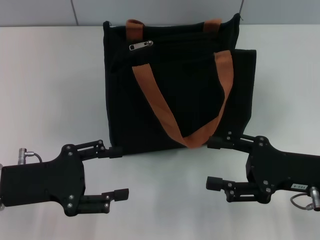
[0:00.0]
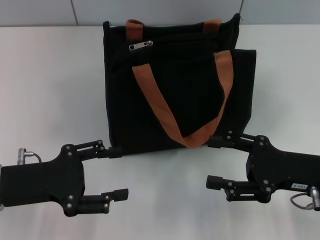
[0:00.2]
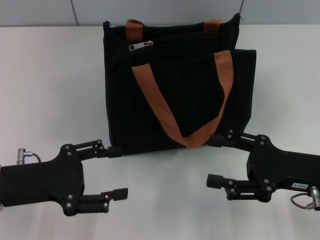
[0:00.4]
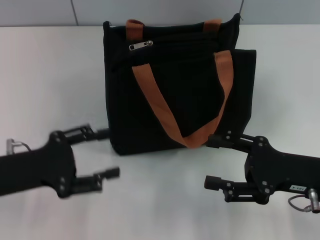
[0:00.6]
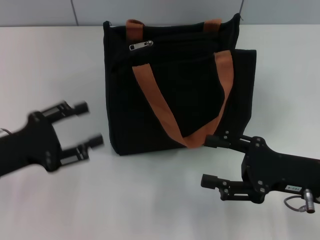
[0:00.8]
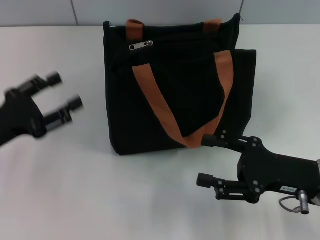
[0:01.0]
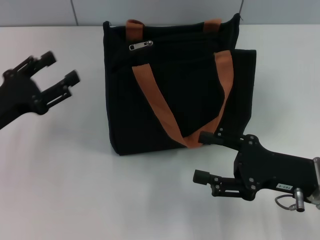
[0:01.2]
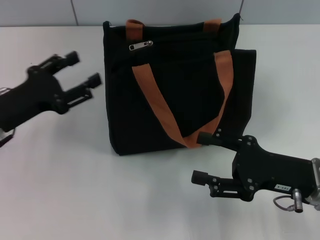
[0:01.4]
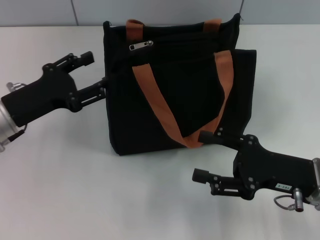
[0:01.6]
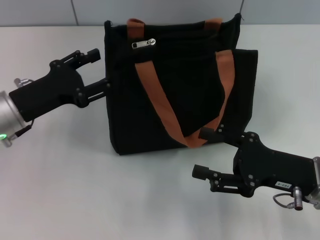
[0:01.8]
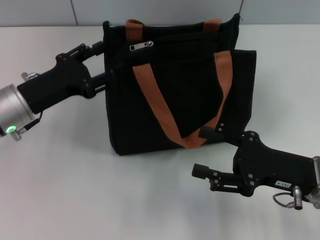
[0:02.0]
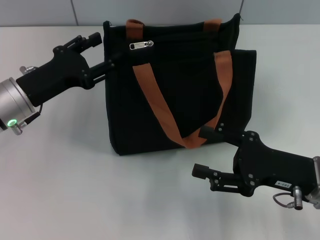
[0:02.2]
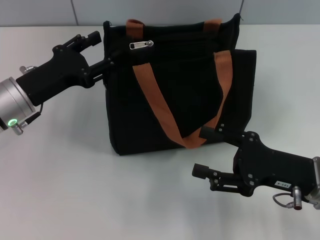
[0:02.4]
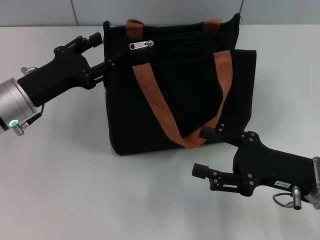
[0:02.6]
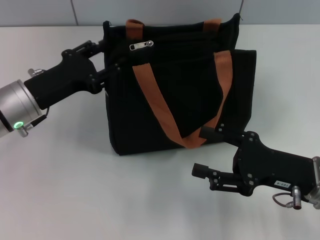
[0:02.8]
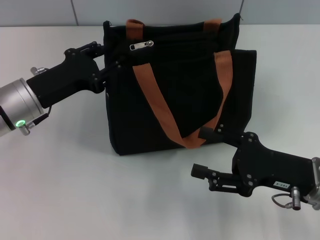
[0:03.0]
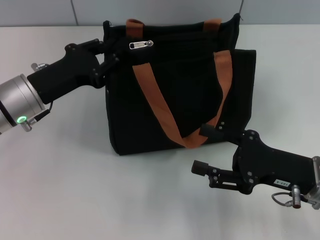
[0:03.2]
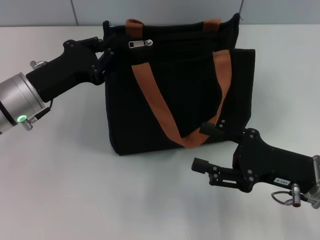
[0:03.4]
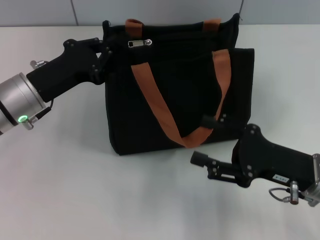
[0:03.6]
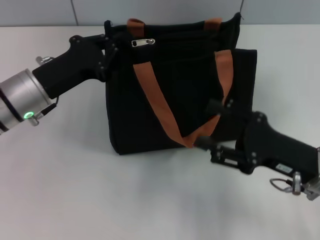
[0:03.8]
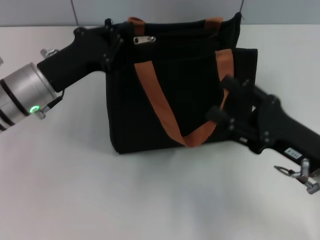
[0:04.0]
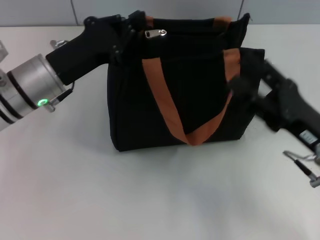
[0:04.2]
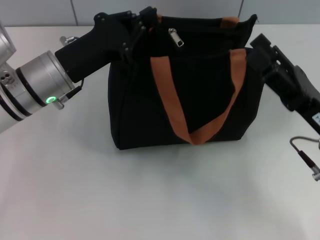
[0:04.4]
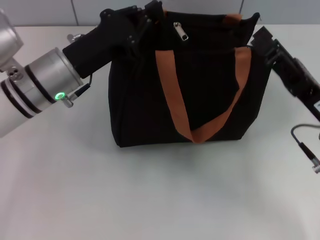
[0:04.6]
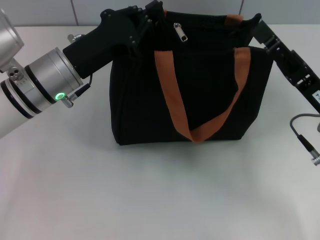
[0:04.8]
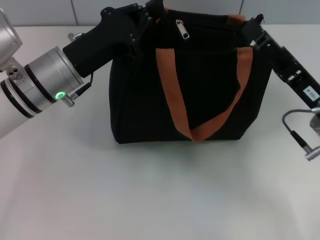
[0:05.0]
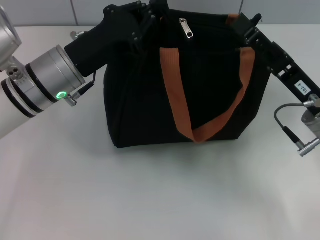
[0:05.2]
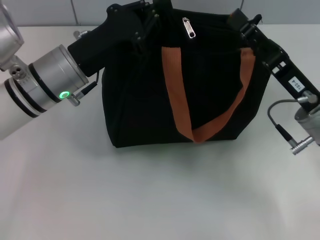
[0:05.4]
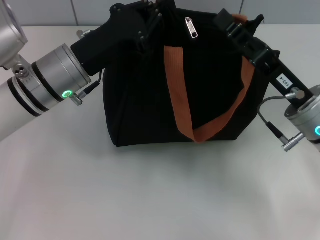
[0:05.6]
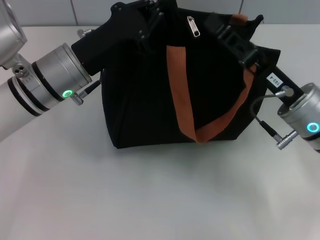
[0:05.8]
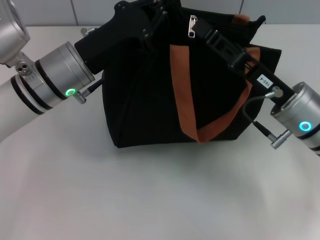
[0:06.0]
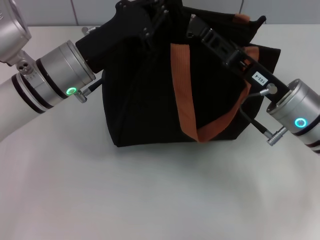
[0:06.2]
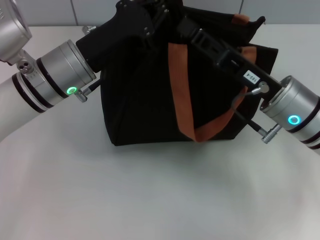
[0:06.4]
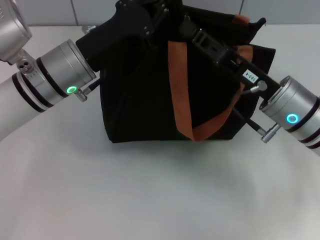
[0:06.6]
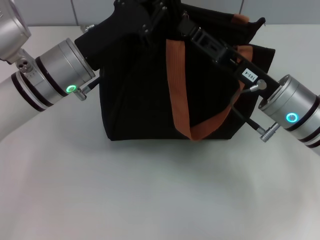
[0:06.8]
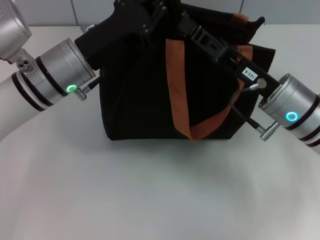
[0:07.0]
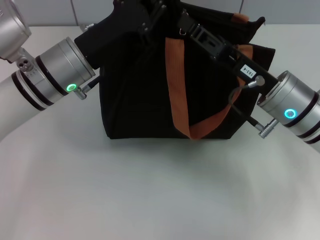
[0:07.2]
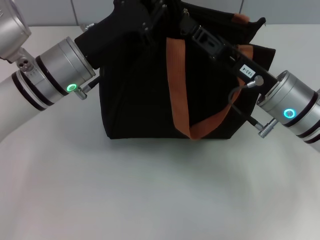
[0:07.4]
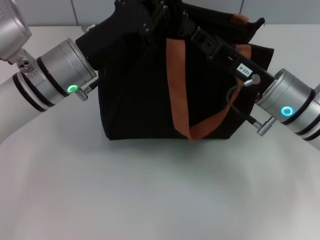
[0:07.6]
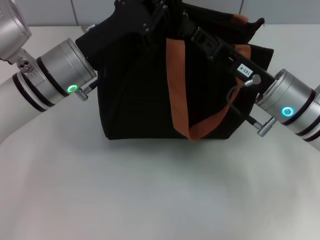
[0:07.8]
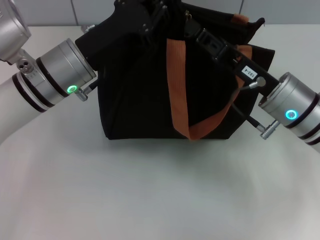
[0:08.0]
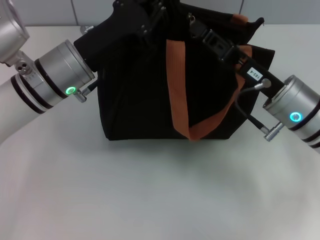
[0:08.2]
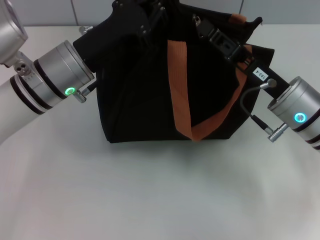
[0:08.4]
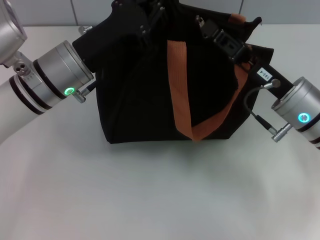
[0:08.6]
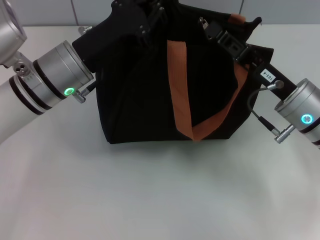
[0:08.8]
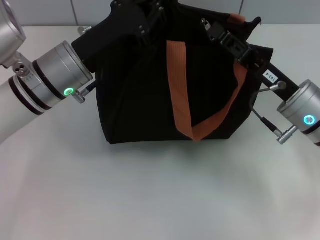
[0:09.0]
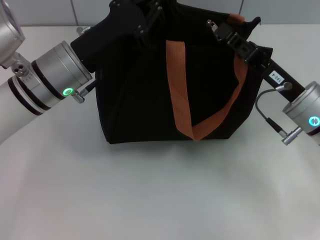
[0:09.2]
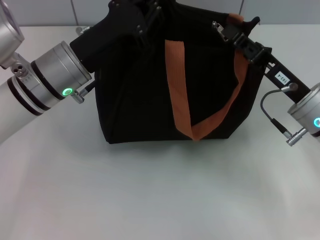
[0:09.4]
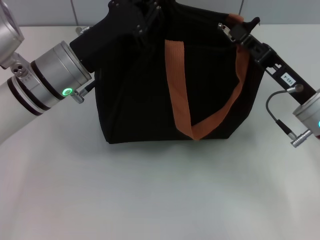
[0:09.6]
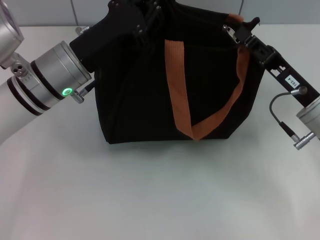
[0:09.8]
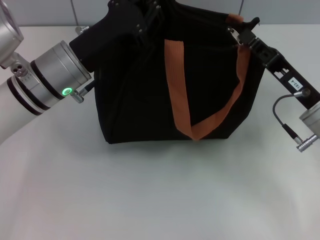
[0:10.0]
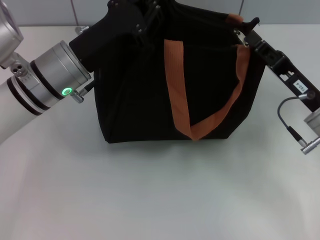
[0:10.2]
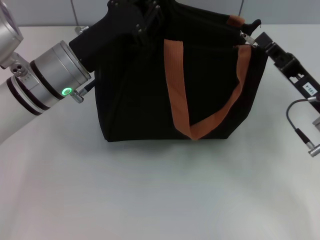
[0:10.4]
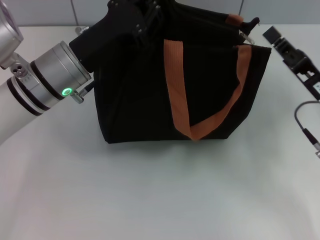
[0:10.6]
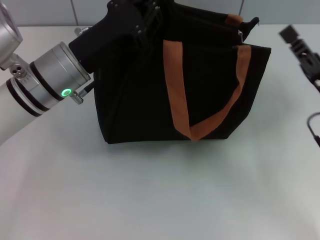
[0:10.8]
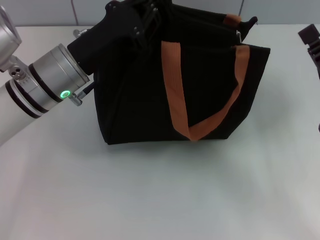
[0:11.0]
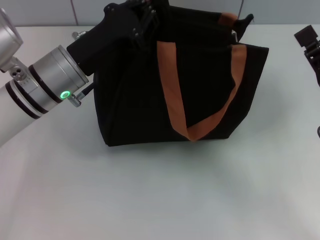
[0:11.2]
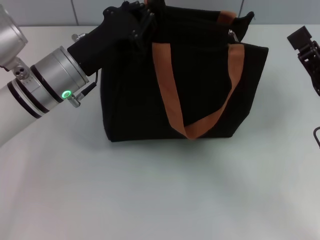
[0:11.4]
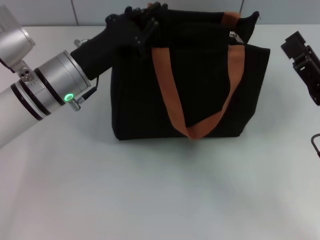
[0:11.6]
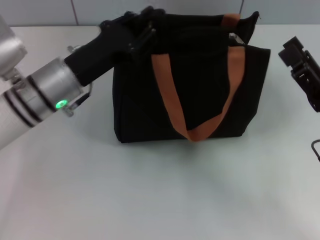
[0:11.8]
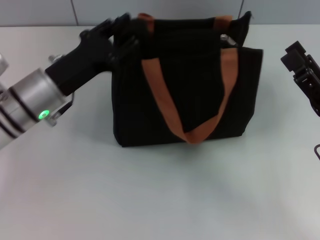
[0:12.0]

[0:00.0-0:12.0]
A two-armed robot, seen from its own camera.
Step, 0:00.0 to 0:10.6: Pull up the zipper with your right hand.
Step, 0:10.8 to 0:12.0: Grab the zipper with your left hand.
0:00.0 to 0:01.6: The left gripper moves forward, some 5 cm.
0:01.6 to 0:03.0: The grippers stay close to where they were, moving slightly.
0:03.0 to 0:04.4: The left gripper ends up roughly 5 cm from where it was, and closes.
0:04.4 to 0:06.0: The right gripper heads forward, covering some 5 cm, and closes up.
0:06.0 to 0:09.0: The grippers make only small movements.
0:09.0 to 0:10.4: The right gripper ends up some 5 cm from where it was.
0:10.4 to 0:12.0: The right gripper heads backward, covering approximately 5 cm, and opens, while the left gripper changes place by about 5 cm, and opens up.

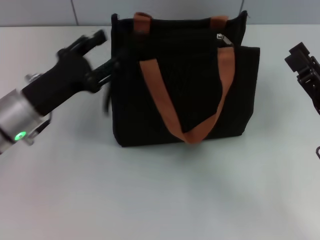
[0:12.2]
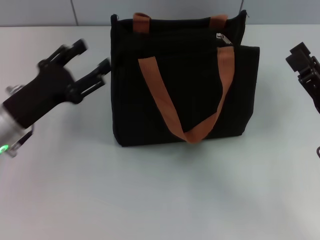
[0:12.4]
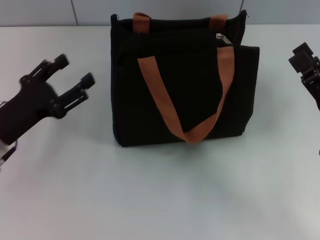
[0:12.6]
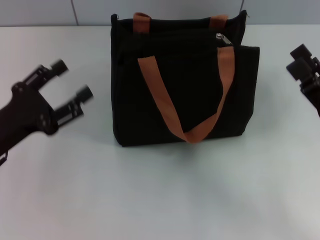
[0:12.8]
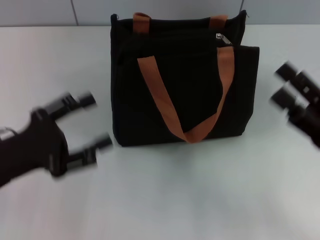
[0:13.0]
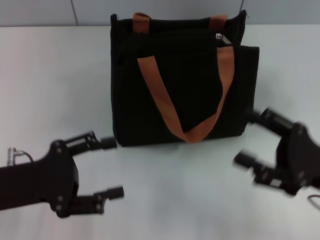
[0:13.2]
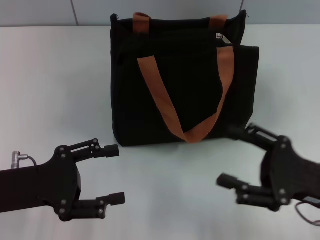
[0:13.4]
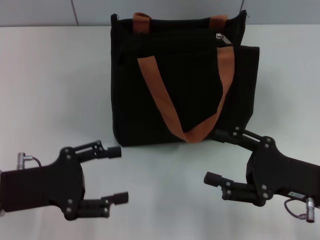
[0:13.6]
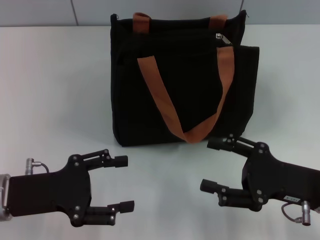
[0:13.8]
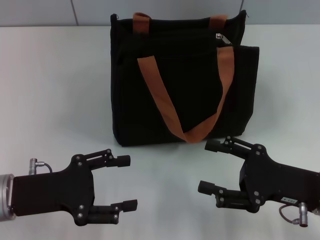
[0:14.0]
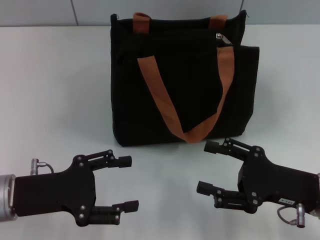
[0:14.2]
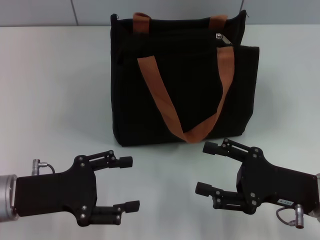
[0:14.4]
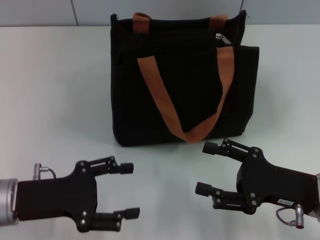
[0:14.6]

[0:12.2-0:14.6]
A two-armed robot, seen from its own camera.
0:12.2 to 0:13.4: The left gripper travels backward by about 10 cm.
0:13.4 to 0:14.6: The grippers stay close to where they were, moving slightly.

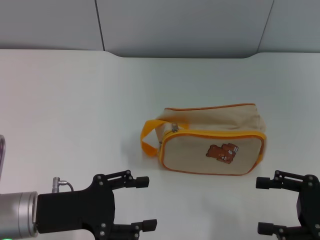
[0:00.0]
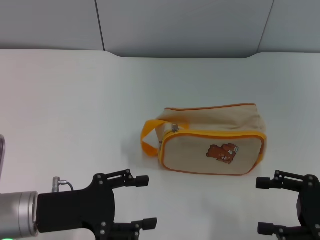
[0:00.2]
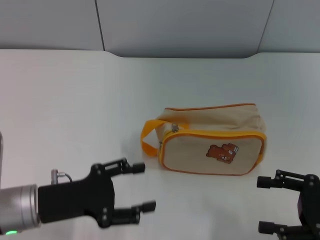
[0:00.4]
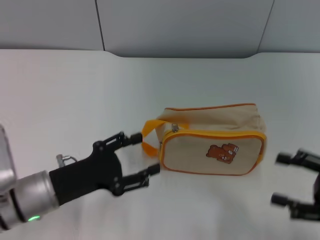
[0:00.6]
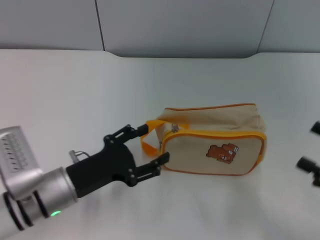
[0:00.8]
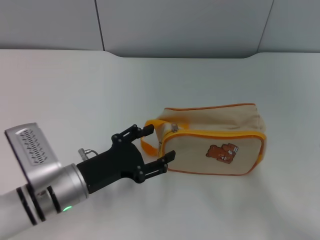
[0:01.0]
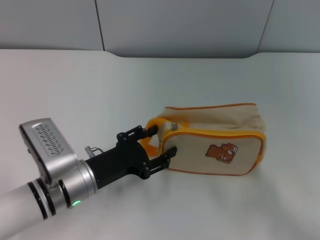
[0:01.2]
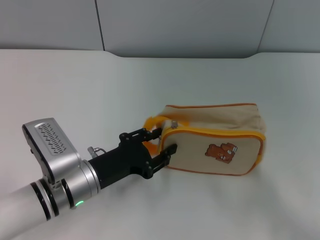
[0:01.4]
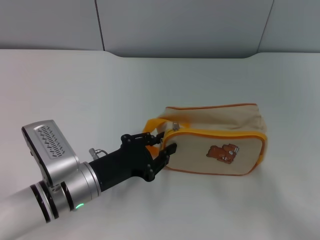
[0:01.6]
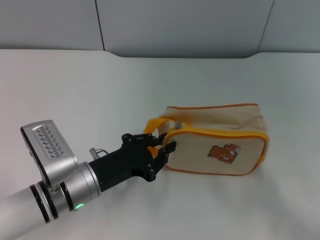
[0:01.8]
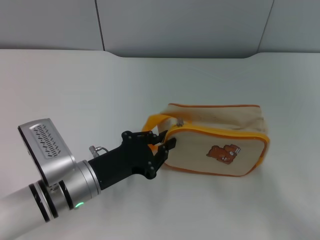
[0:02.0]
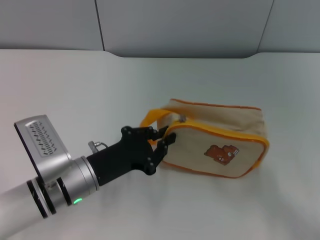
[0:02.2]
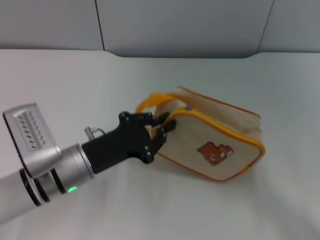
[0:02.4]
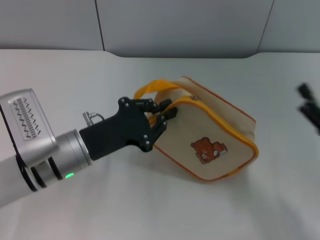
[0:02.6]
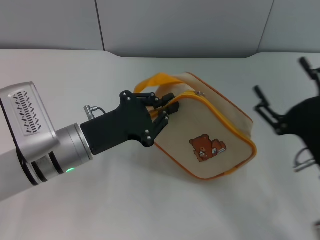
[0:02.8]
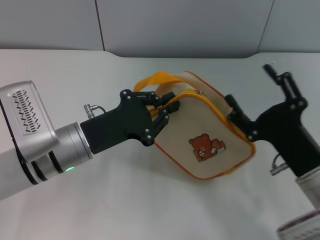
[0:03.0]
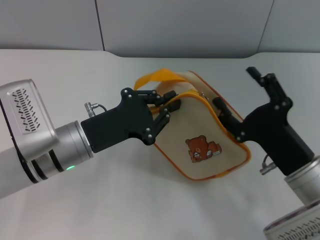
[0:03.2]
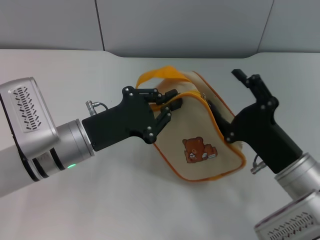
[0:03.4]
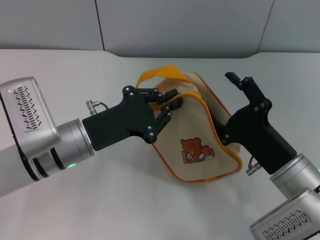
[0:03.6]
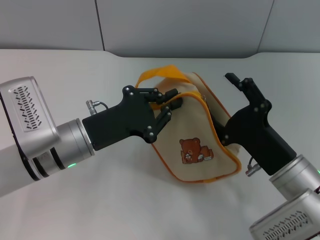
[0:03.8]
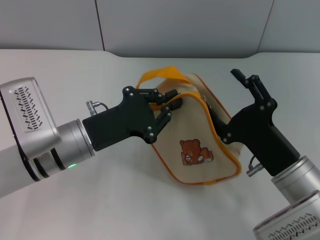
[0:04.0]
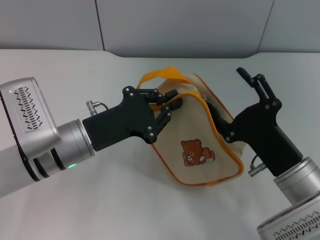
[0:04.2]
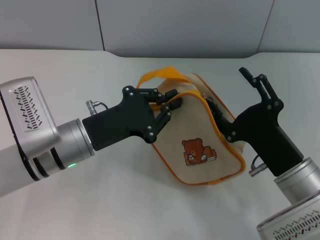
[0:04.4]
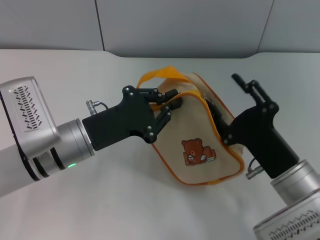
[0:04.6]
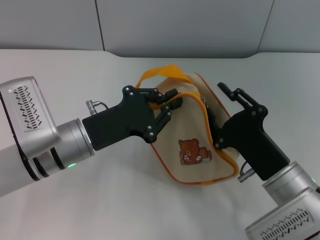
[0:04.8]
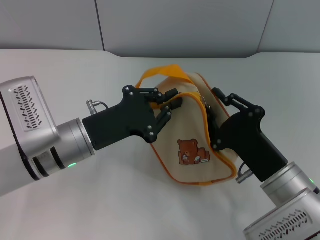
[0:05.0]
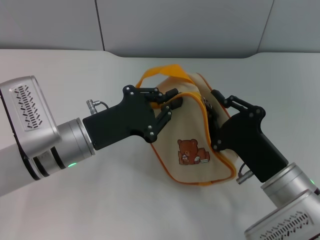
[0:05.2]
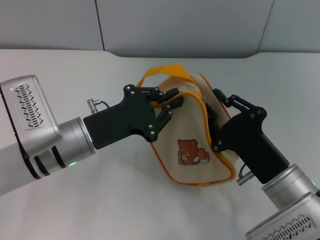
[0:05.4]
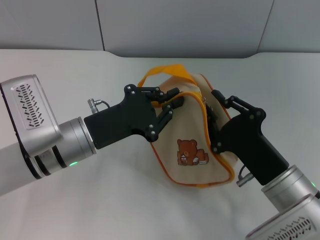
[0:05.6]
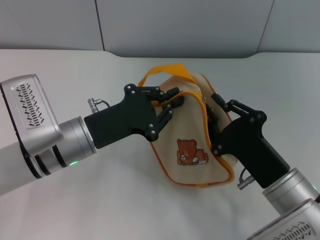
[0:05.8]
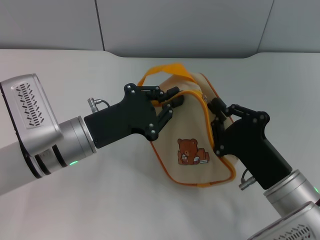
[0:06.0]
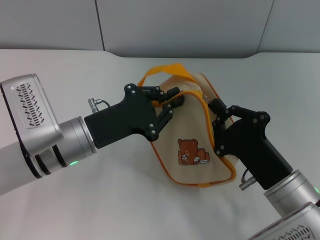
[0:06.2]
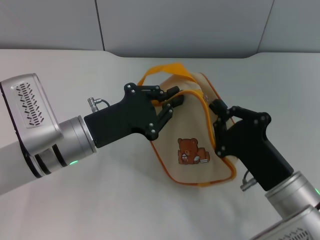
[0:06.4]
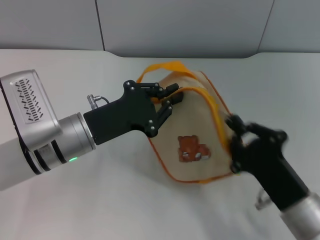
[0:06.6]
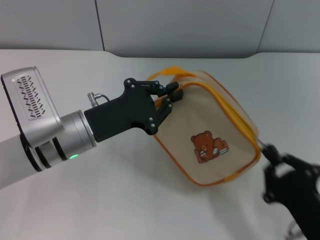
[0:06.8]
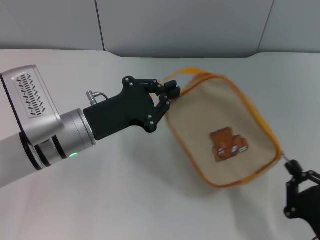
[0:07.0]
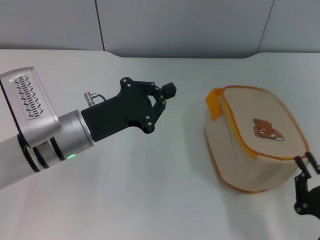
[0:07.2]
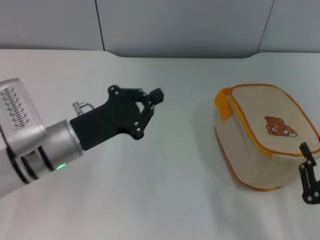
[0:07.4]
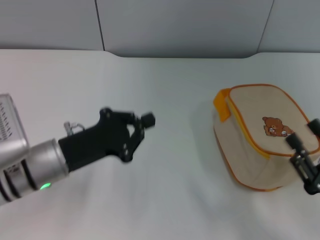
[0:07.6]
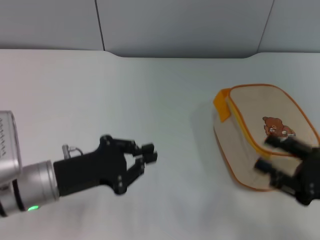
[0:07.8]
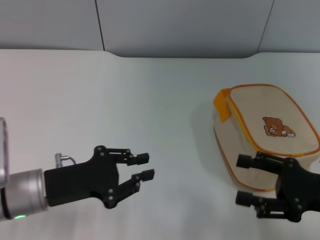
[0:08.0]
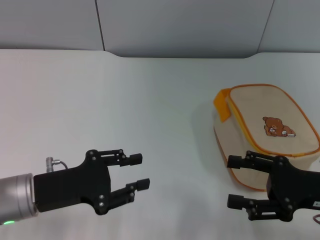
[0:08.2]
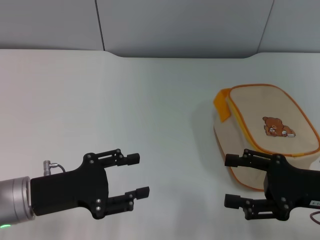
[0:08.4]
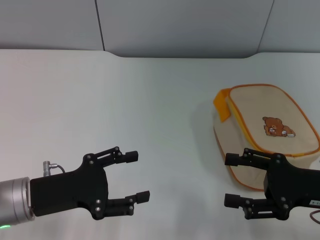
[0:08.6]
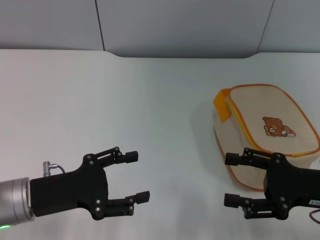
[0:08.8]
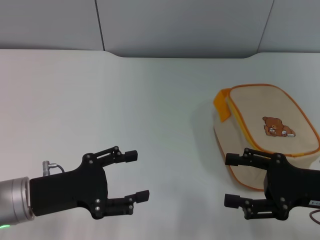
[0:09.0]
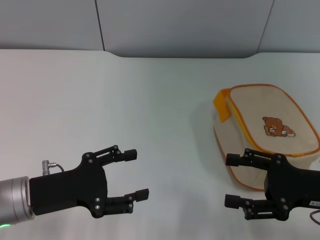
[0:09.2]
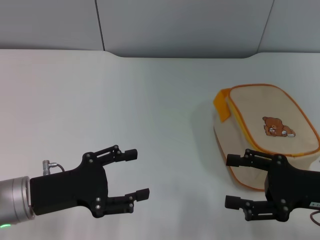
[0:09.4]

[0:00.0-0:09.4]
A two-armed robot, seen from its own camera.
Step, 0:00.0 to 0:02.6: Pick up the bag with left gripper.
Step, 0:02.8 to 0:07.2: Unzip the zipper of bag with right gripper.
0:00.0 to 0:01.6: The two grippers go about 5 cm to the right.
0:01.6 to 0:03.2: The right gripper heads to the left, covering some 15 cm. The left gripper goes some 5 cm upward, and closes.
0:03.2 to 0:04.8: The grippers stay close to where they were, moving slightly.
0:04.8 to 0:06.2: The right gripper closes.
0:06.2 to 0:07.8: The left gripper moves roughly 5 cm. Meanwhile the right gripper travels to the right by about 15 cm, and opens.
0:07.8 to 0:09.4: The left gripper opens its fingers.
